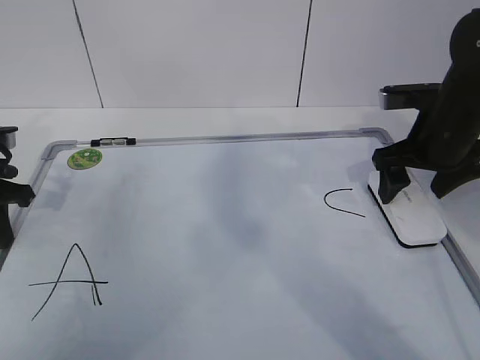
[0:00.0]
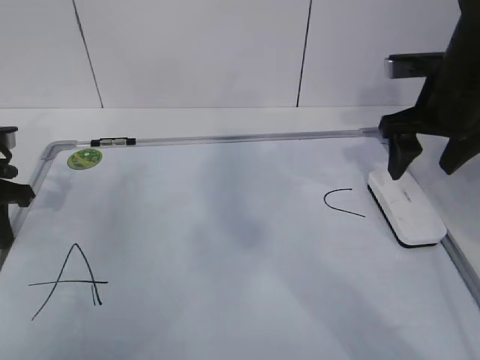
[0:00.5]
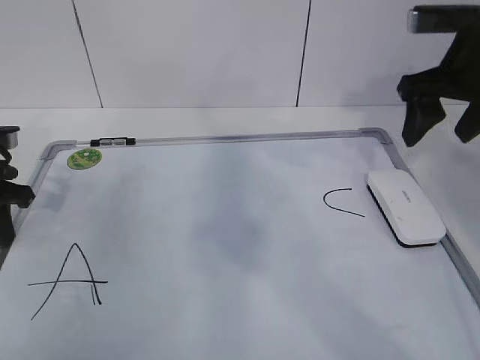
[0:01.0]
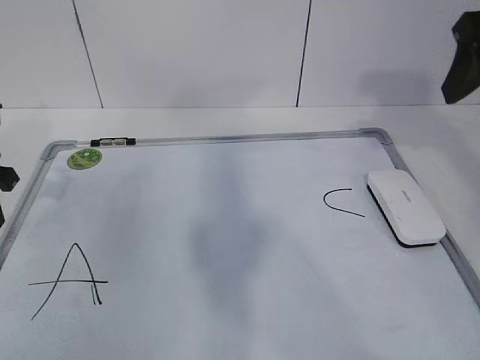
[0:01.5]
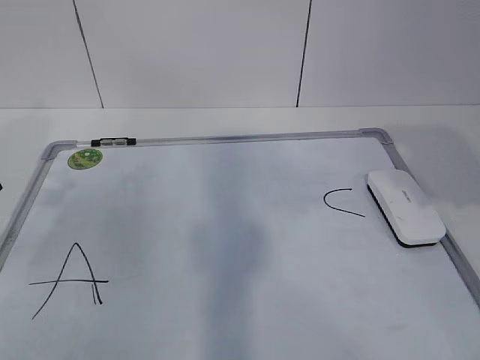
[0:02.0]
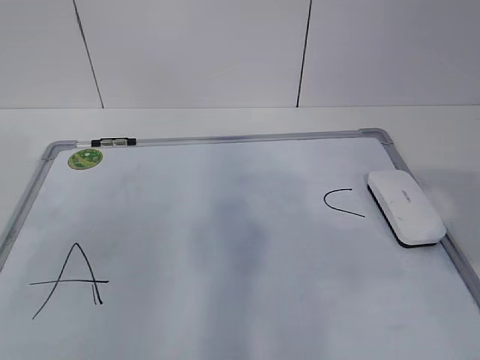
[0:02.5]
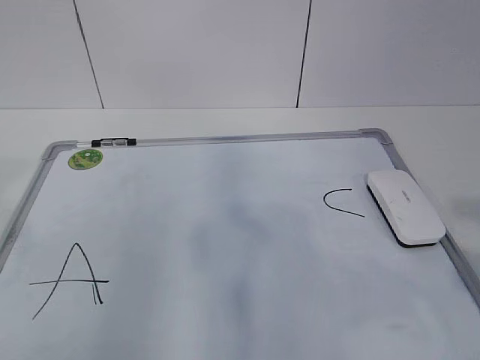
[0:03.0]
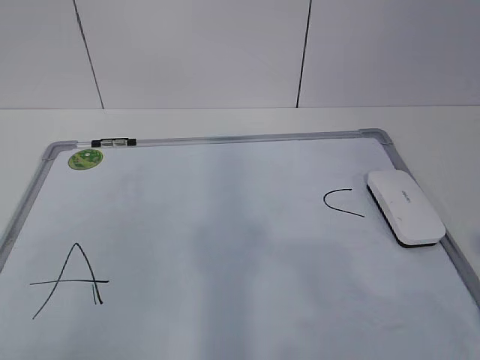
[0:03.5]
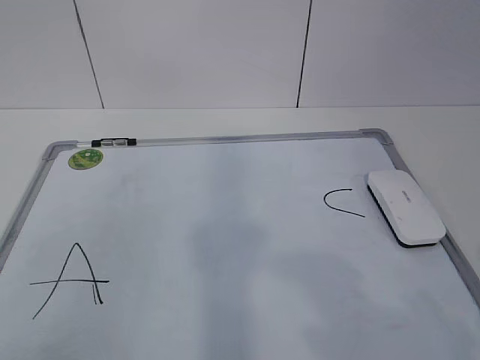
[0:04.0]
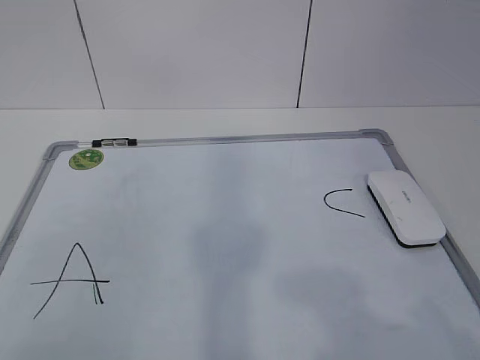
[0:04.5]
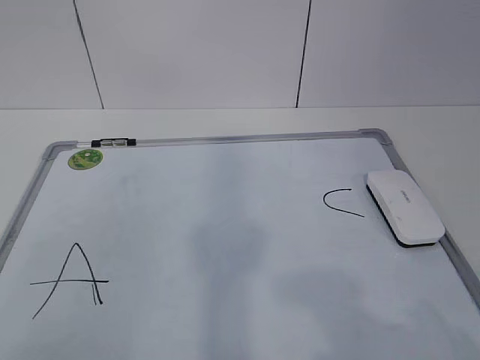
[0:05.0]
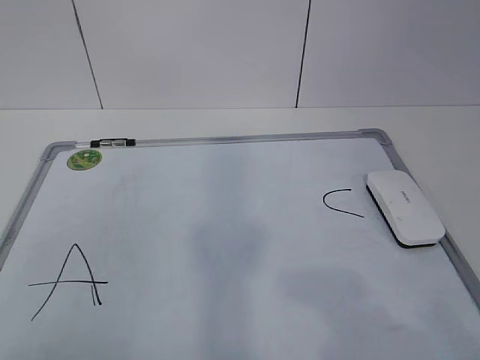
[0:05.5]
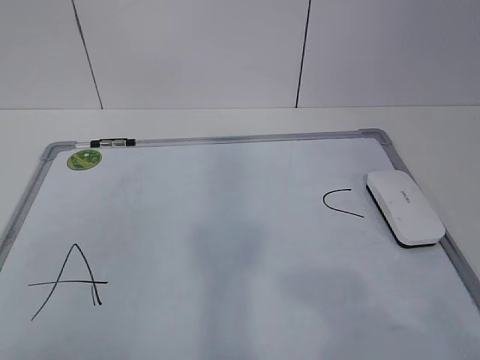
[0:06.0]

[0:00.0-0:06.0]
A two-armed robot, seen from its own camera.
Task of the whole recording: pick up the eraser on the blackboard and erase the letter "B".
0:00.0 to 0:02.0: The left gripper goes roughly 5 cm upward, and opens up; the right gripper moves backward and upward, some 20 cm, and closes its fingers.
0:02.0 to 0:04.0: The right gripper heads backward, covering approximately 20 cm.
